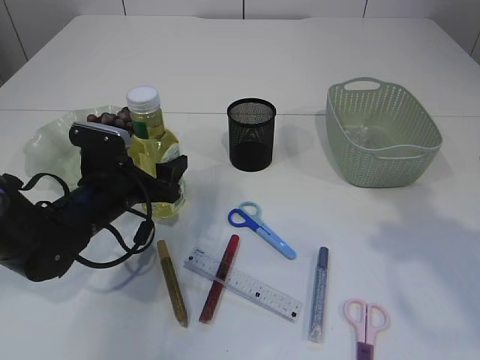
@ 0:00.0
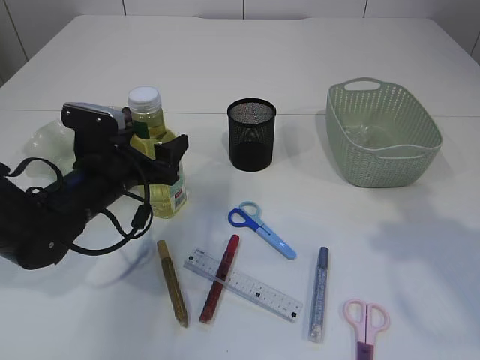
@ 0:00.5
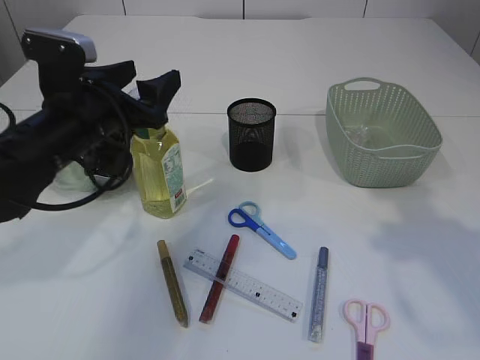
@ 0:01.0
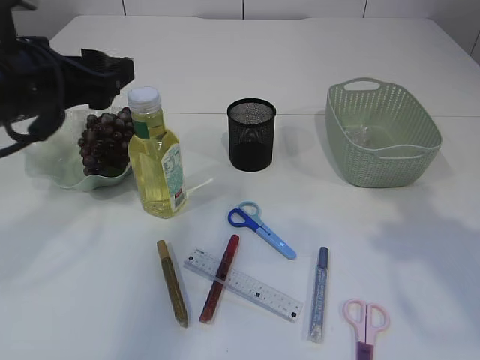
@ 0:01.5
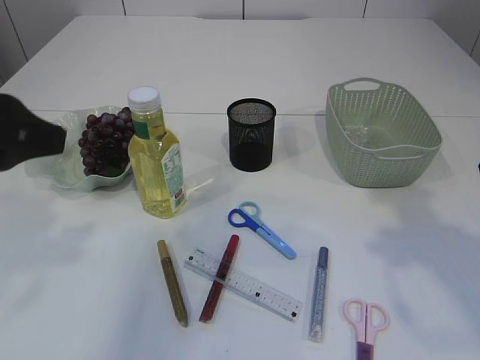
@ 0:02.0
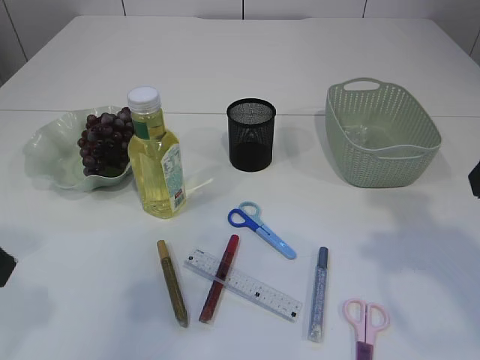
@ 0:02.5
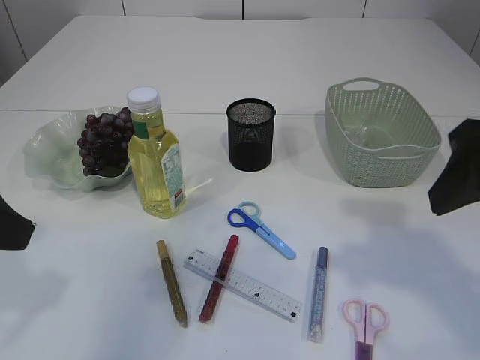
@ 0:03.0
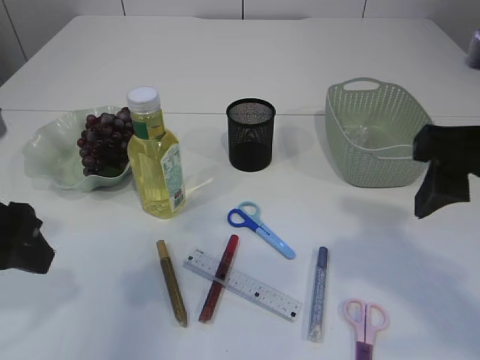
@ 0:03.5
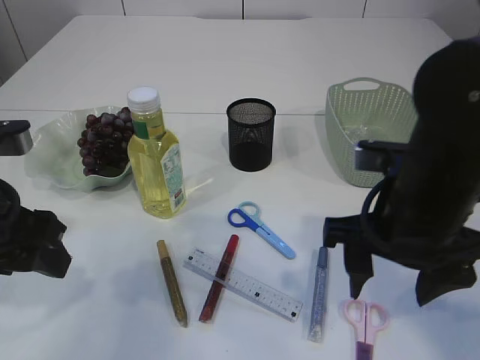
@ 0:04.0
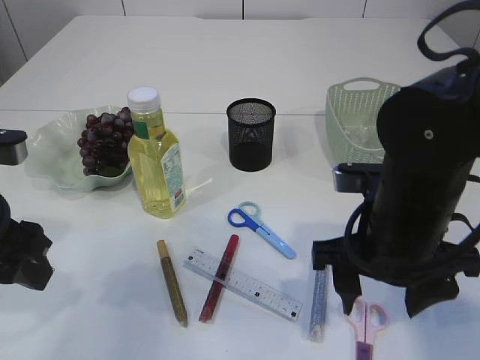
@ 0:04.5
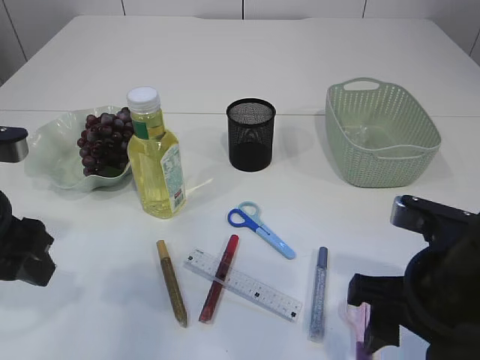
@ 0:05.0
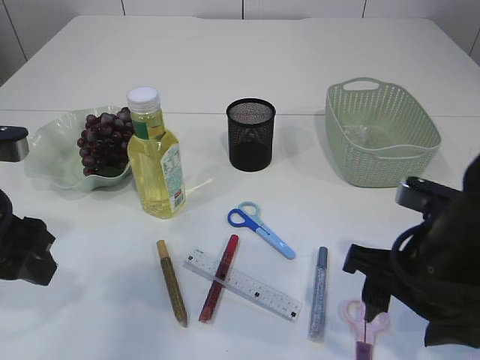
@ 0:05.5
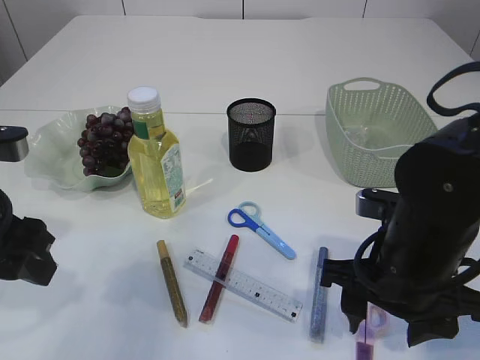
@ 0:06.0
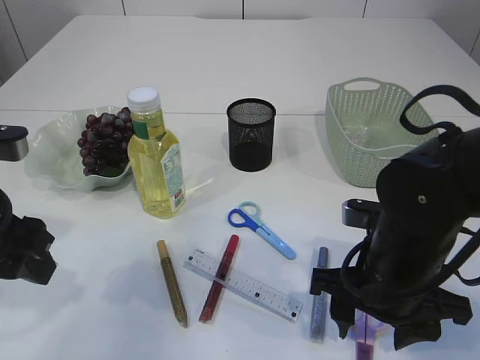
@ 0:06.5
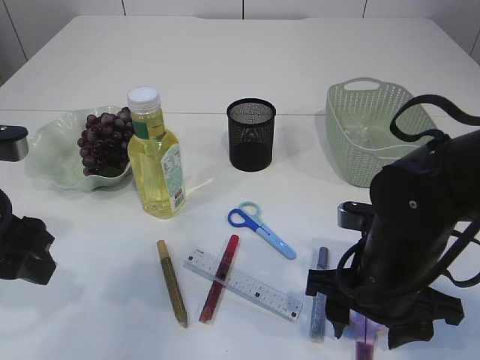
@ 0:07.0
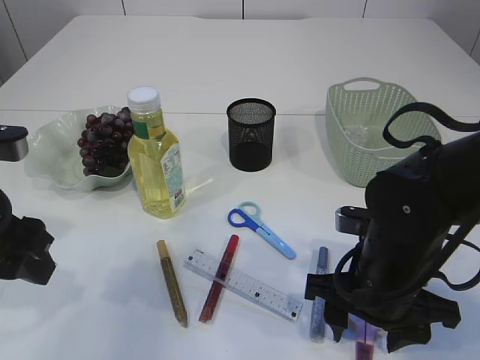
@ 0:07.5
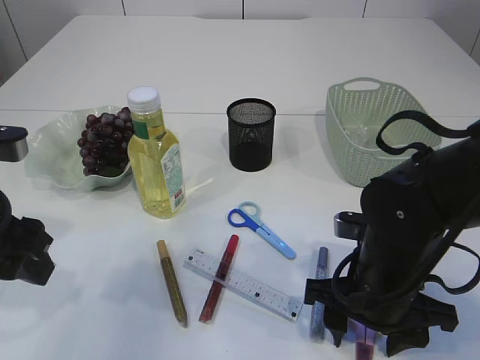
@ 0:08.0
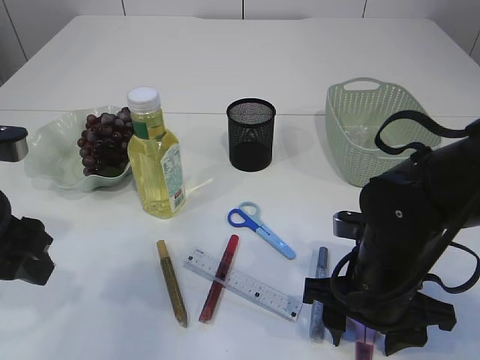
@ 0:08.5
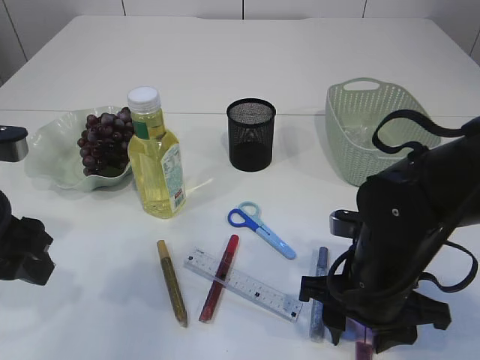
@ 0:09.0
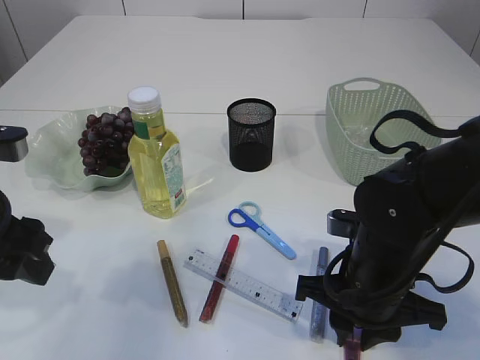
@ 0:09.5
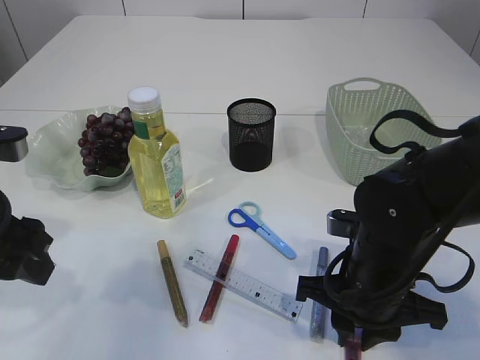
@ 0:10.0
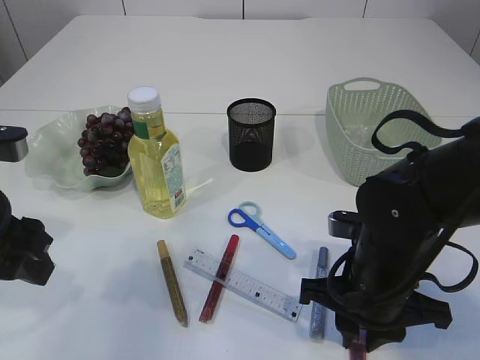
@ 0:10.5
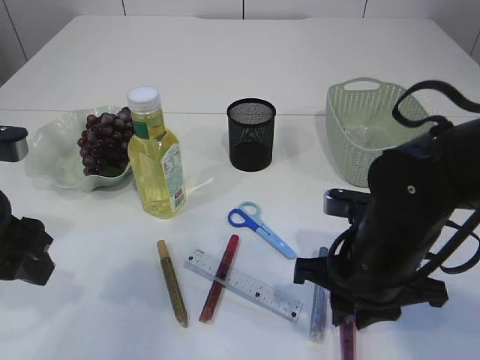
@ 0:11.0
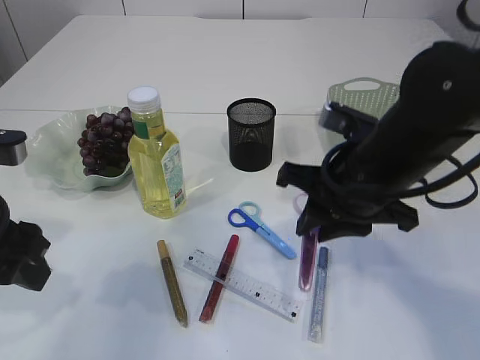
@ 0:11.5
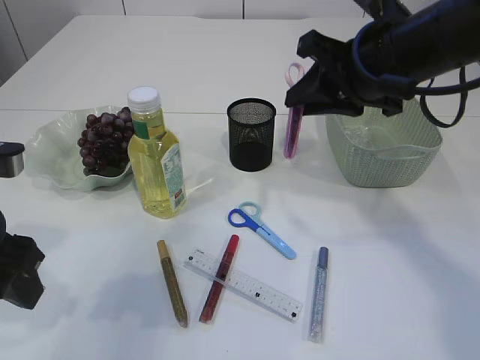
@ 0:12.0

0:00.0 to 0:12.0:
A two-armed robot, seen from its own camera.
Step, 0:01.5 to 0:11.0: pick up the pink scissors.
0:00.0 to 0:02.0: The left gripper moves upward and backward, roughly 25 cm.
0:02.0 to 0:04.0: The right gripper moves to the left and downward, roughly 15 cm; the left gripper goes some 10 cm downward.
0:04.0 to 0:06.0: The right gripper heads downward, covering roughly 5 cm.
0:06.0 to 0:08.0: The grippers move only a little.
0:08.0 to 0:10.0: The right gripper closes up.
0:10.0 to 0:12.0: The right gripper is displaced upward and forward by some 20 cm.

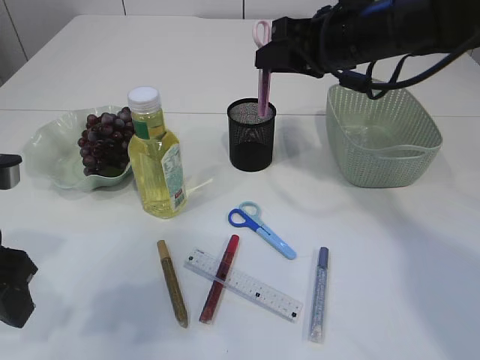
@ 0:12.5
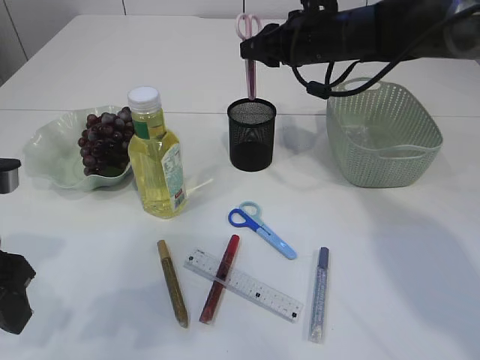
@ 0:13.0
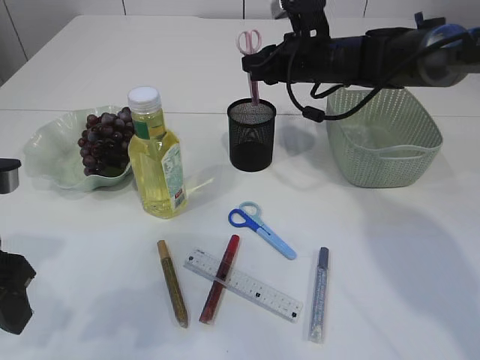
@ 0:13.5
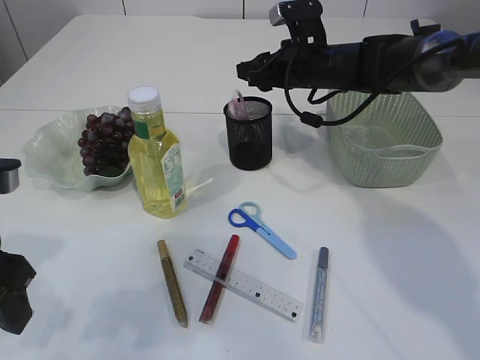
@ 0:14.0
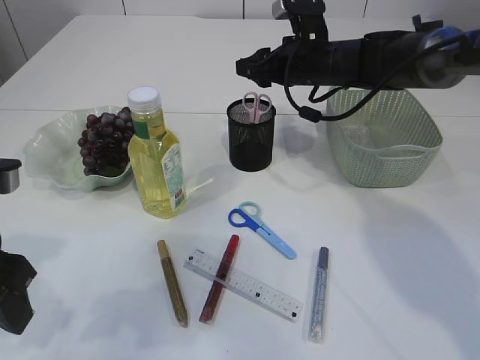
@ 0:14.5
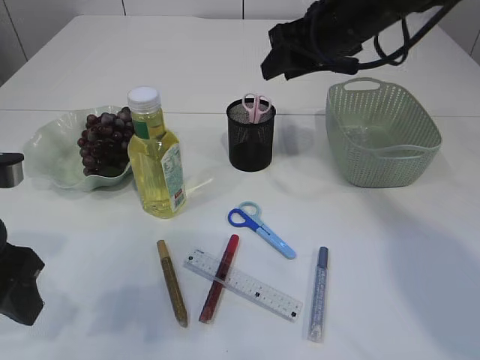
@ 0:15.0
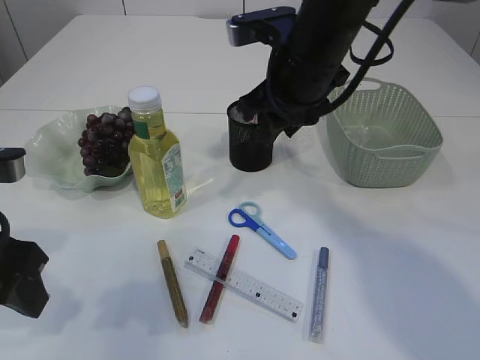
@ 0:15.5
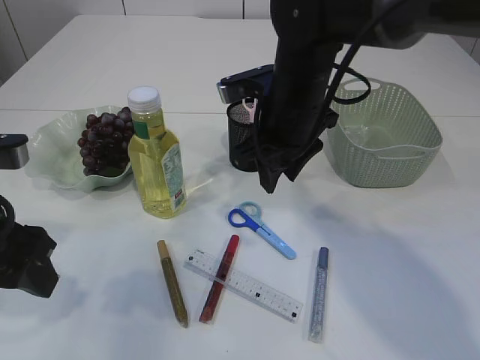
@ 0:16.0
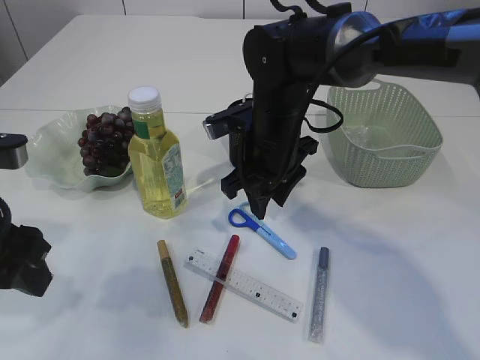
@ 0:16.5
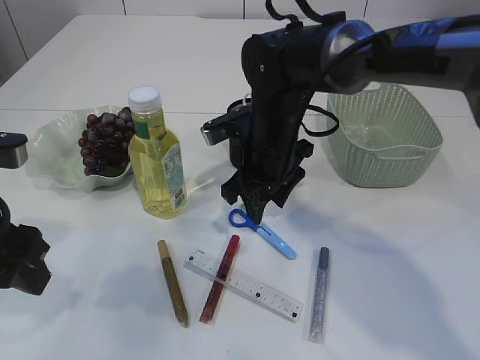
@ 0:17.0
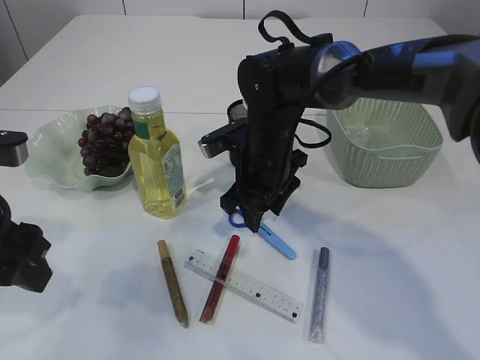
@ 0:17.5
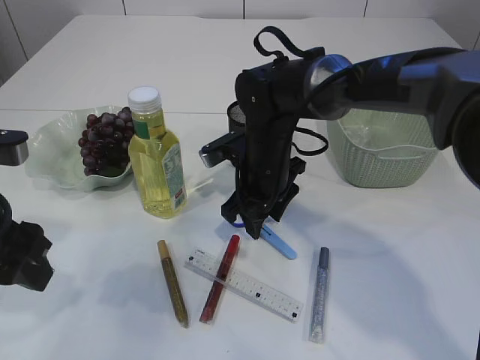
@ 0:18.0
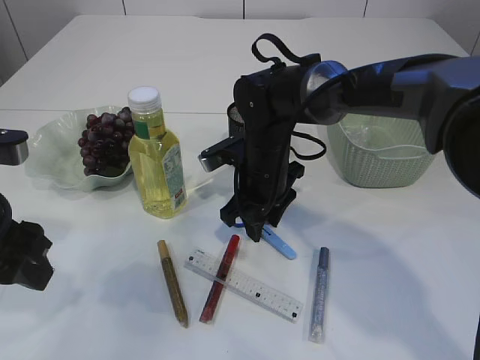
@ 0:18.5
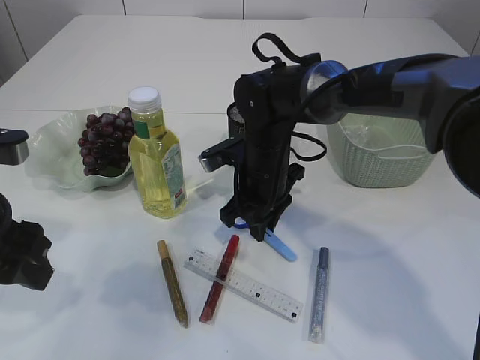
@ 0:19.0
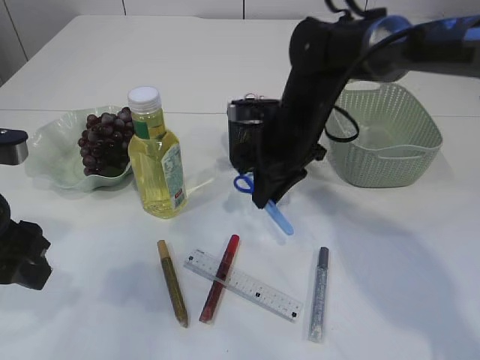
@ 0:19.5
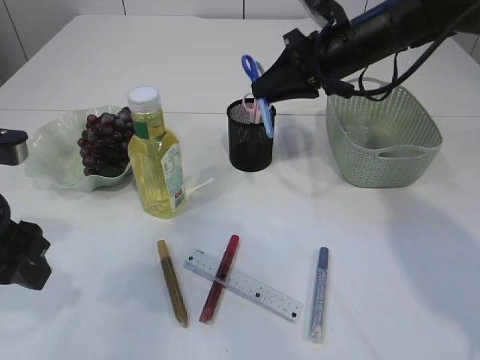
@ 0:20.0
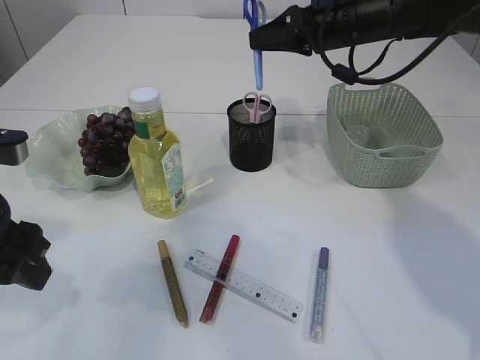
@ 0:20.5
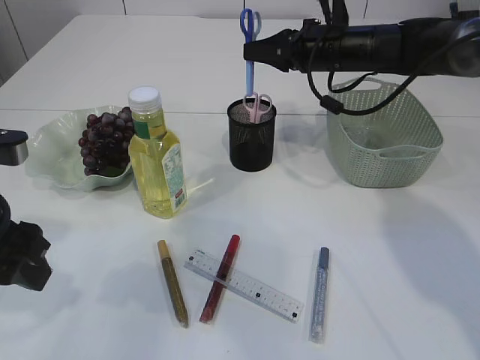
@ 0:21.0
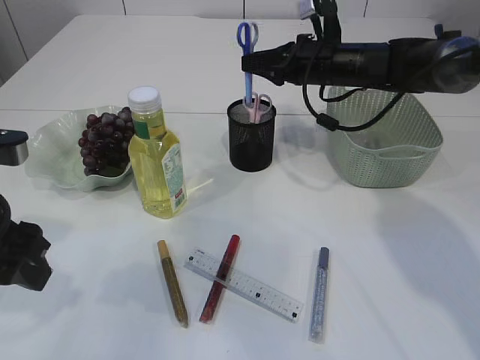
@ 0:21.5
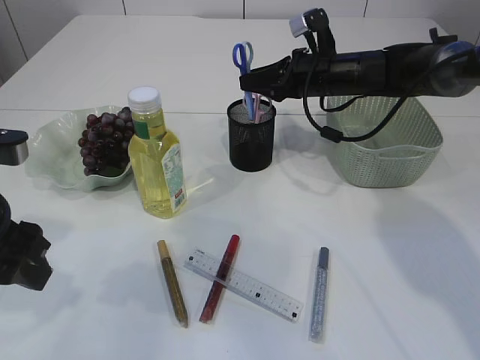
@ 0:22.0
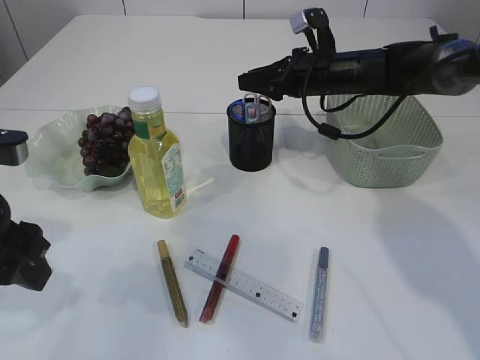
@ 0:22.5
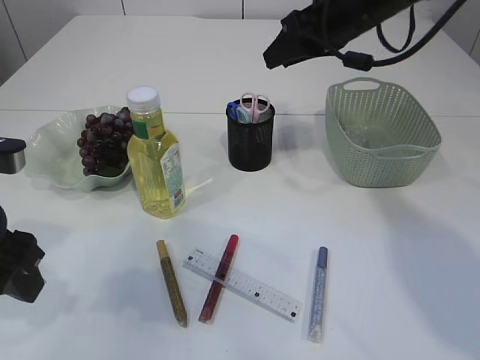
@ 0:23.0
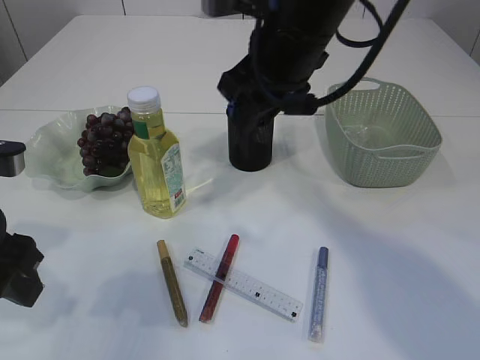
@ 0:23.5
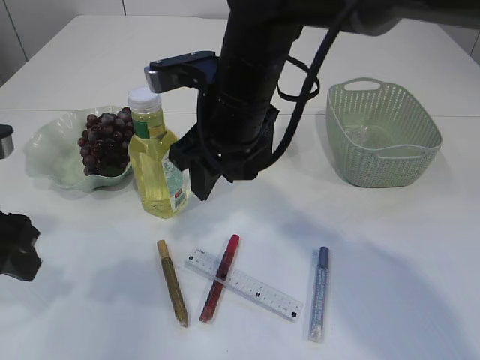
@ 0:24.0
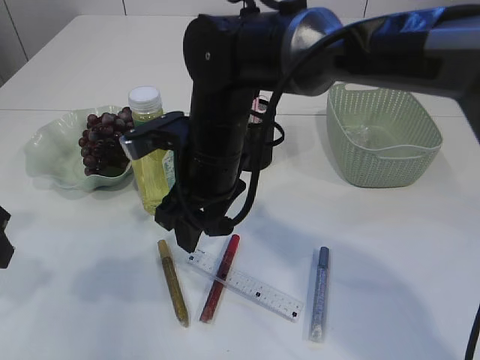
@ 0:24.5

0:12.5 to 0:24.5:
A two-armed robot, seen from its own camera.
Step, 0:12.5 to 0:14.5: Place the pink scissors into the pen holder.
Step, 0:15.0 to 0:19.5: pick up the blue scissors.
Step, 0:20.0 to 0:22.5: Place the blue scissors into the pen holder.
0:12.5 to 0:14.5: The right gripper goes approximately 10 cm forward and downward, and opens up.
0:14.5 to 0:16.5: The right gripper moves backward and to the left, approximately 15 cm.
0:16.5 to 0:18.5: The right gripper moves downward, approximately 5 cm.
0:18.5 to 0:20.5: The right gripper is displaced upward, to the right and forward by roughly 20 cm, and closes.
0:20.5 to 0:22.5: The right gripper heads downward, covering about 10 cm.
0:22.5 to 0:24.5: The right gripper is displaced to the left and backward by some 25 cm.

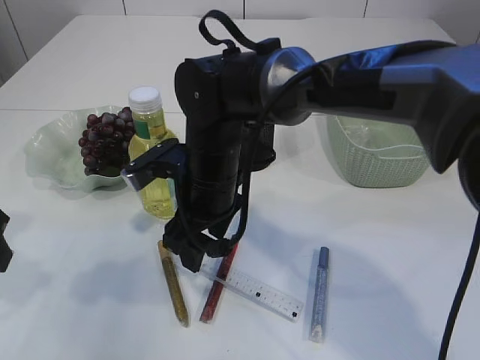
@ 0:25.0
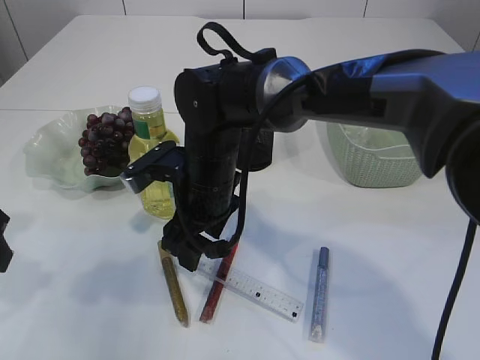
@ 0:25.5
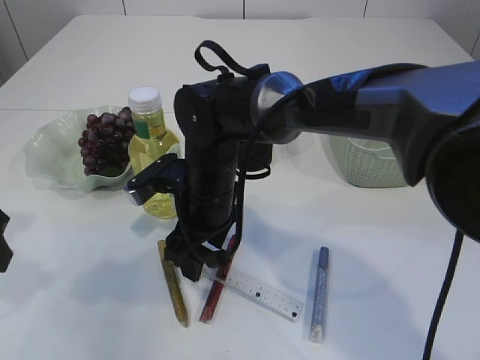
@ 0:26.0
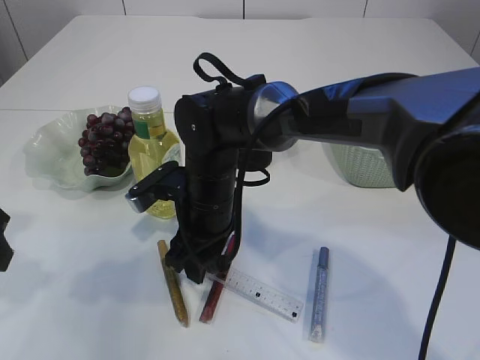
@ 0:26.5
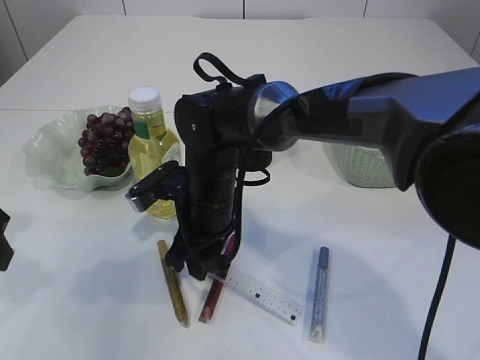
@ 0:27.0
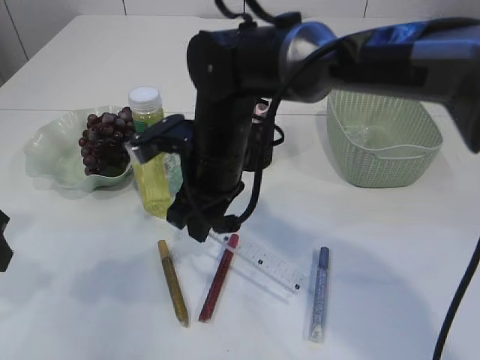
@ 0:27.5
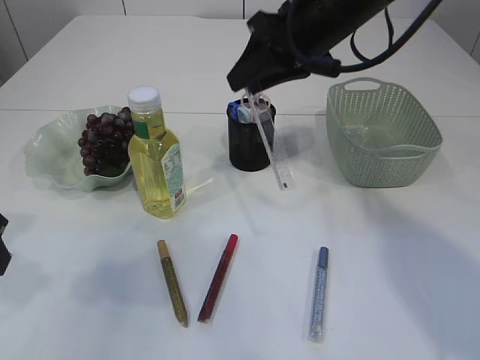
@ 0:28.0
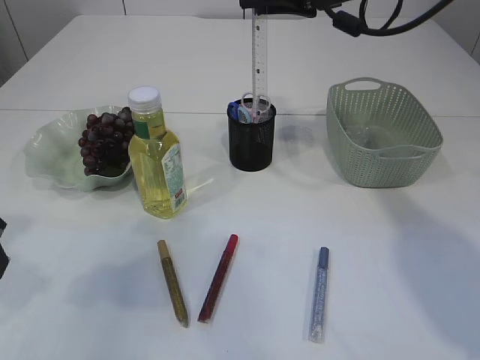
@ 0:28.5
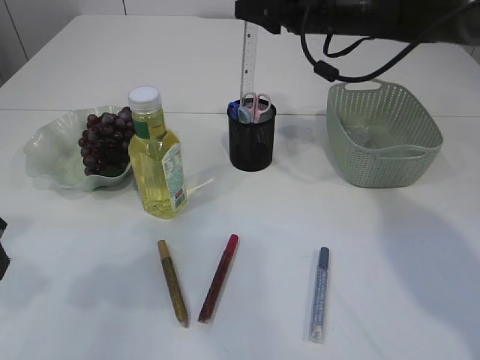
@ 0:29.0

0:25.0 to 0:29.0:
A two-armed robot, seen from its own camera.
Step, 0:25.0 to 0:27.0: pick up the ruler.
0:25.0 to 0:27.0: The right gripper closes up.
0:27.0 to 0:29.0: The right gripper shifts approximately 25 cm to the right, upward and forward.
